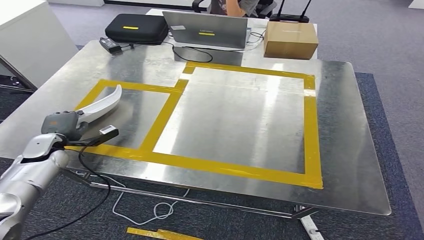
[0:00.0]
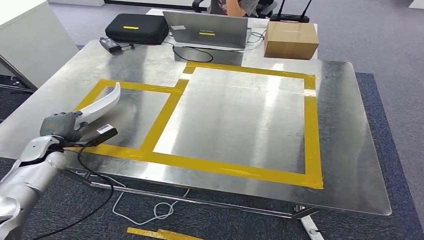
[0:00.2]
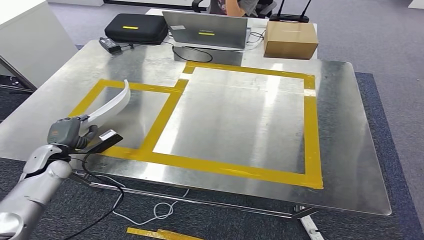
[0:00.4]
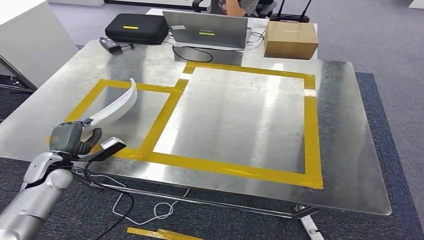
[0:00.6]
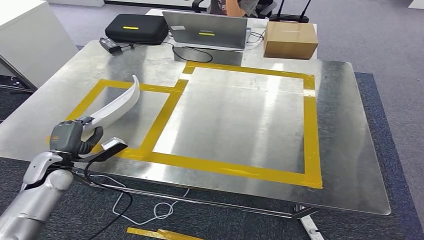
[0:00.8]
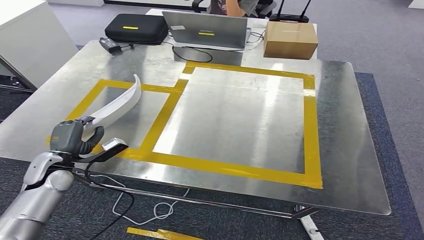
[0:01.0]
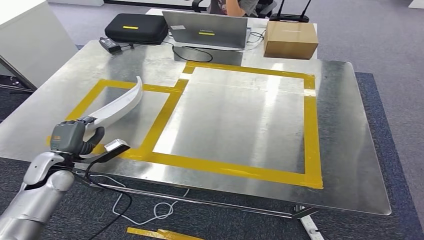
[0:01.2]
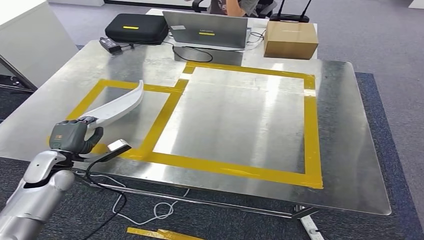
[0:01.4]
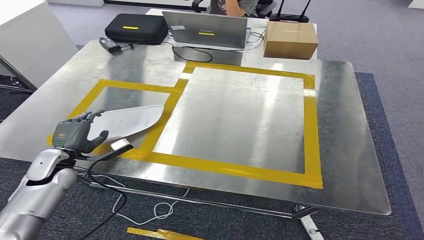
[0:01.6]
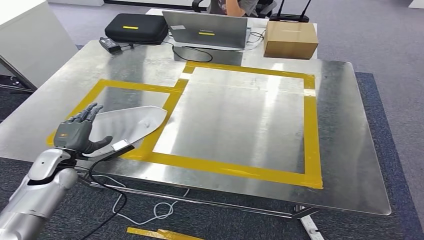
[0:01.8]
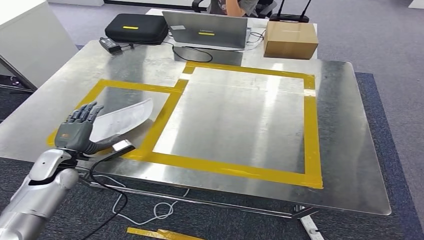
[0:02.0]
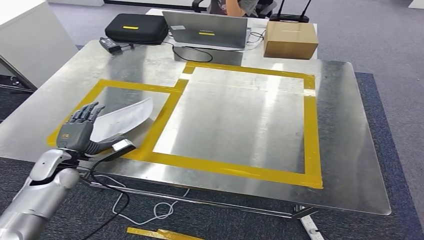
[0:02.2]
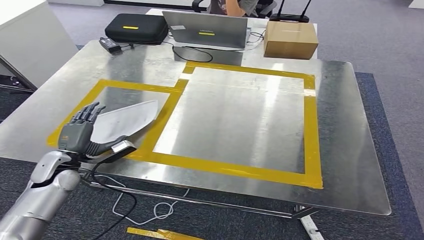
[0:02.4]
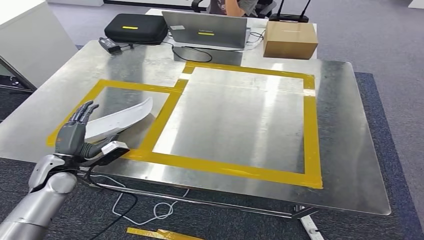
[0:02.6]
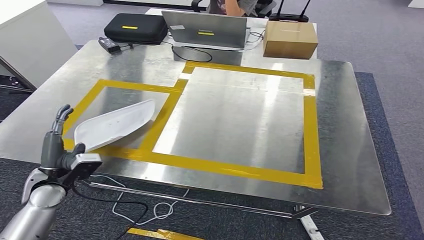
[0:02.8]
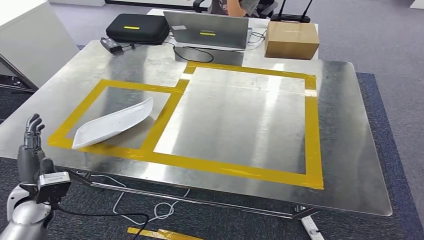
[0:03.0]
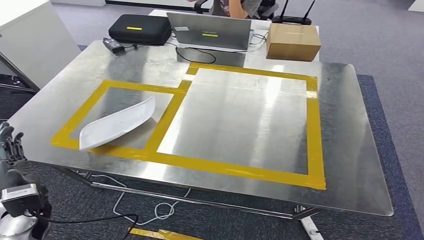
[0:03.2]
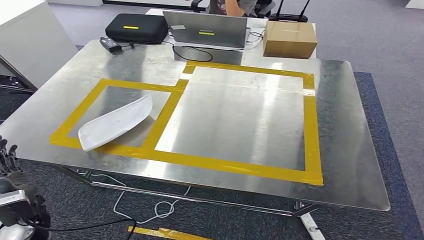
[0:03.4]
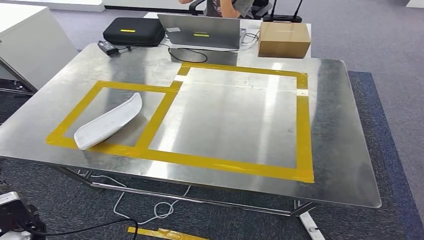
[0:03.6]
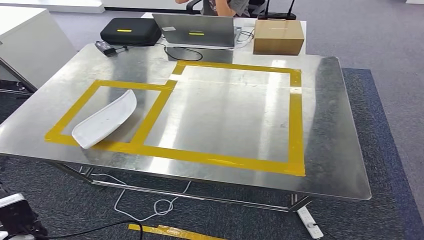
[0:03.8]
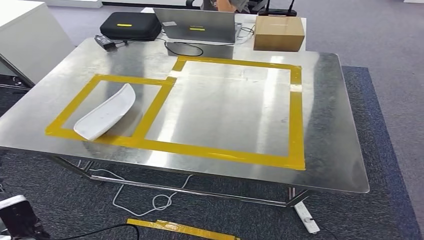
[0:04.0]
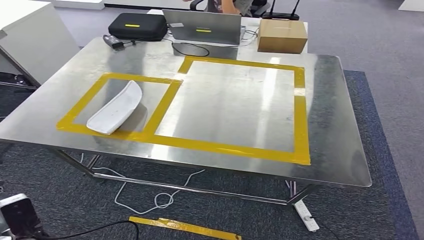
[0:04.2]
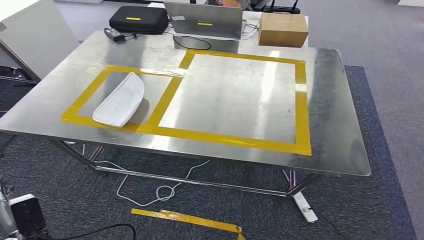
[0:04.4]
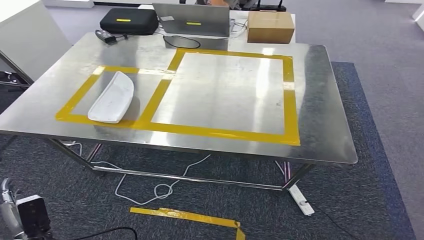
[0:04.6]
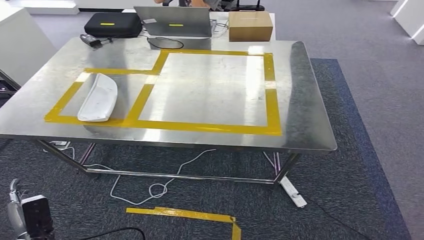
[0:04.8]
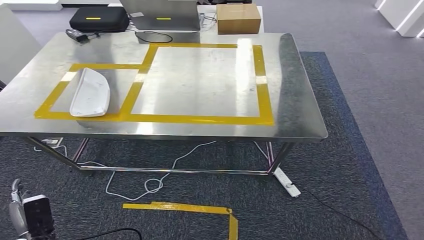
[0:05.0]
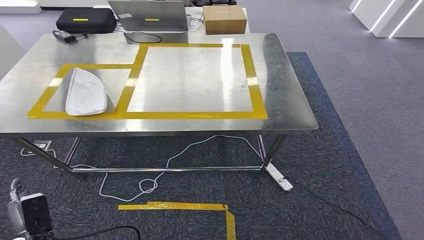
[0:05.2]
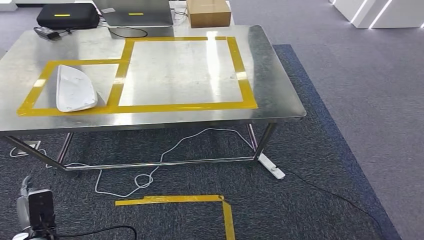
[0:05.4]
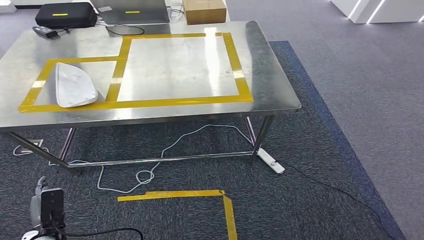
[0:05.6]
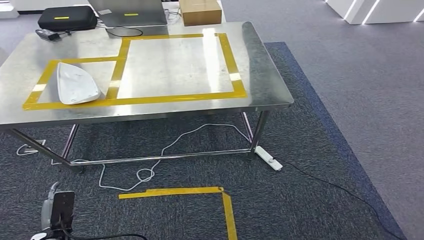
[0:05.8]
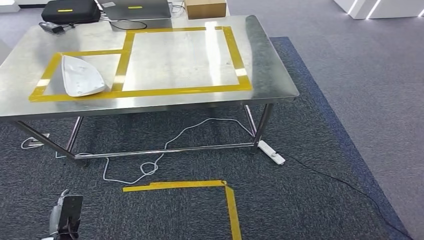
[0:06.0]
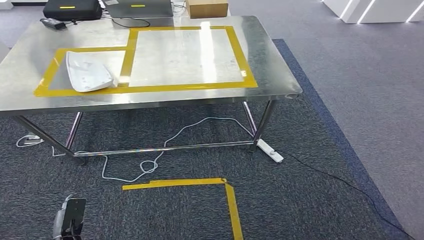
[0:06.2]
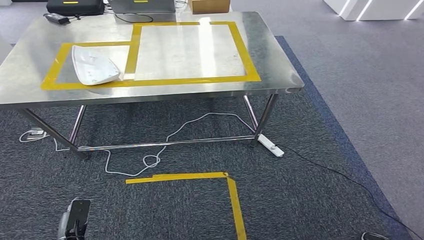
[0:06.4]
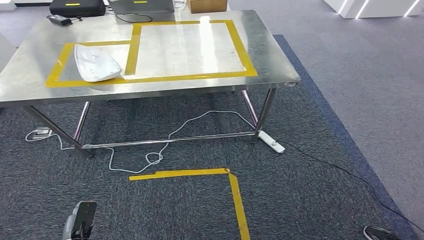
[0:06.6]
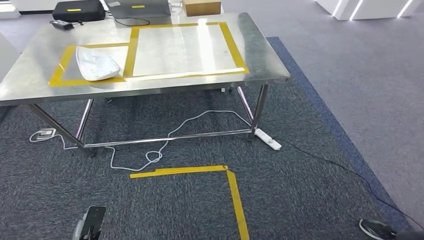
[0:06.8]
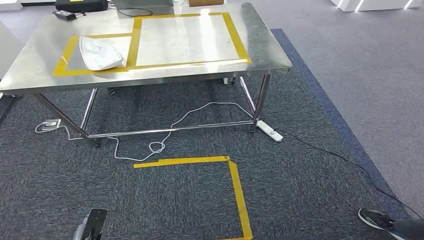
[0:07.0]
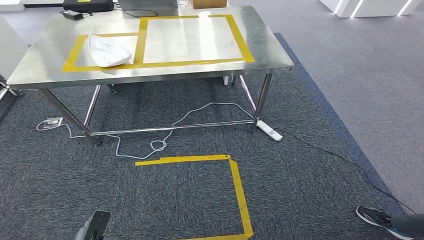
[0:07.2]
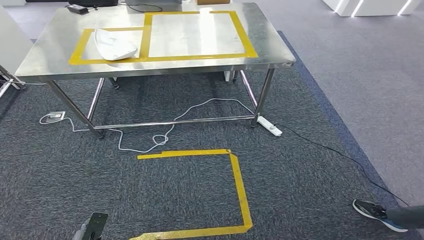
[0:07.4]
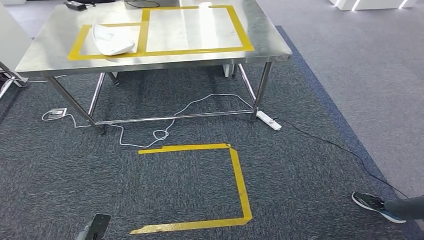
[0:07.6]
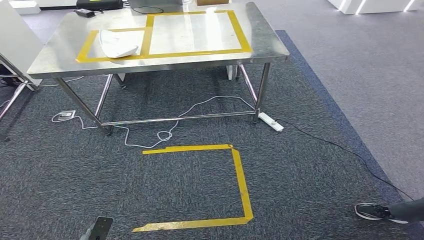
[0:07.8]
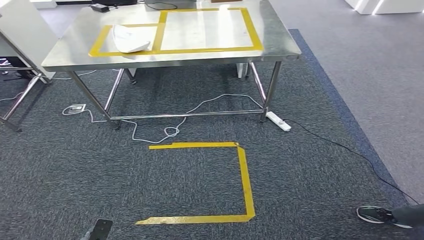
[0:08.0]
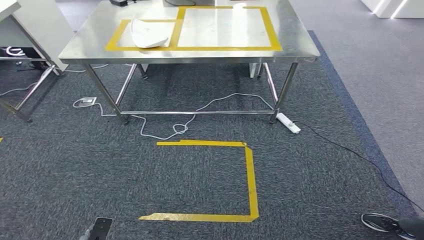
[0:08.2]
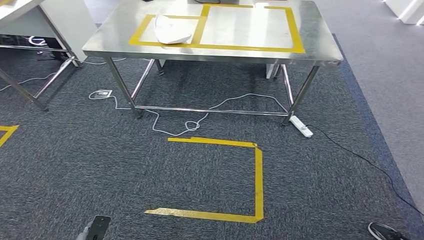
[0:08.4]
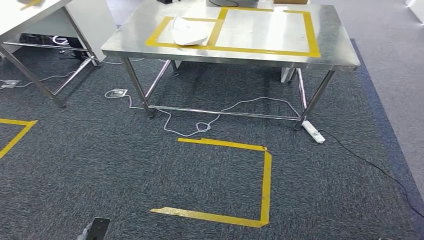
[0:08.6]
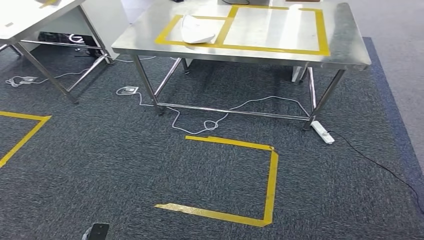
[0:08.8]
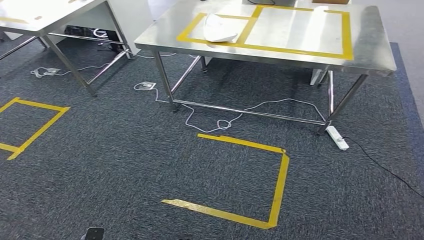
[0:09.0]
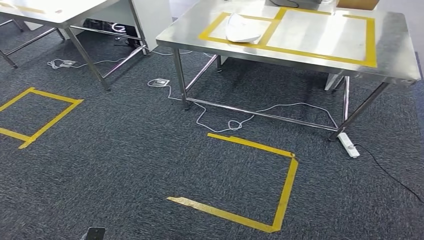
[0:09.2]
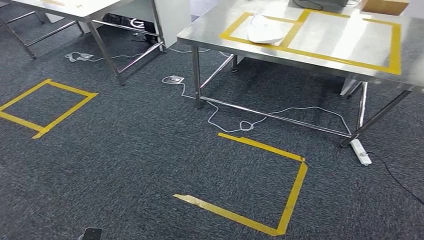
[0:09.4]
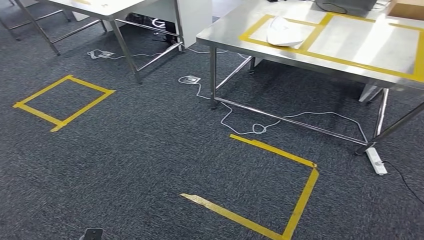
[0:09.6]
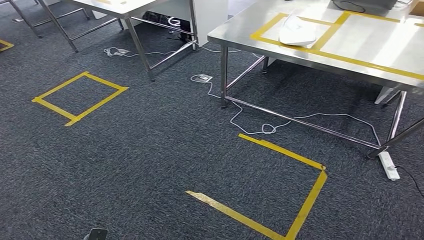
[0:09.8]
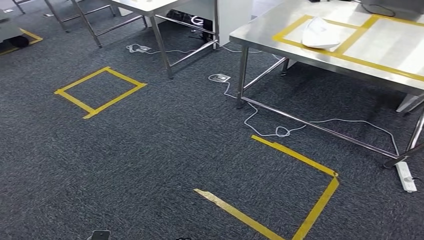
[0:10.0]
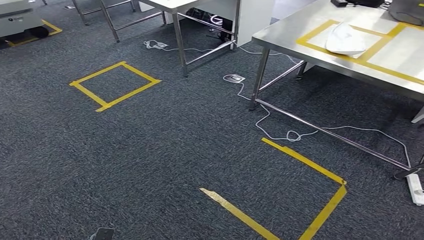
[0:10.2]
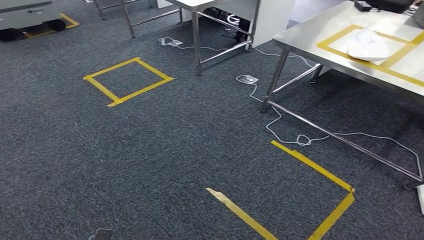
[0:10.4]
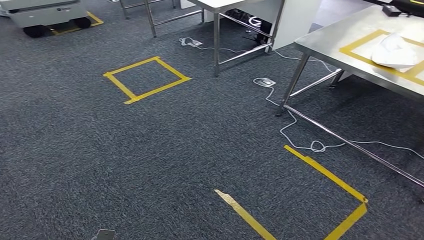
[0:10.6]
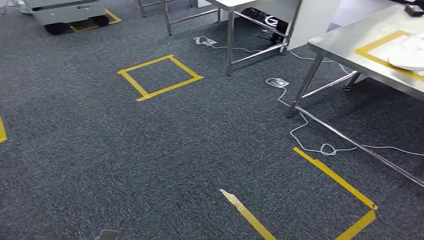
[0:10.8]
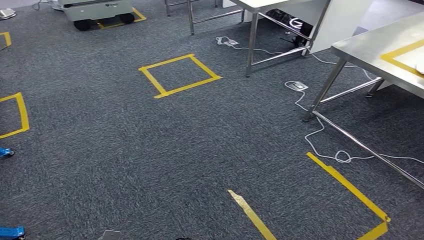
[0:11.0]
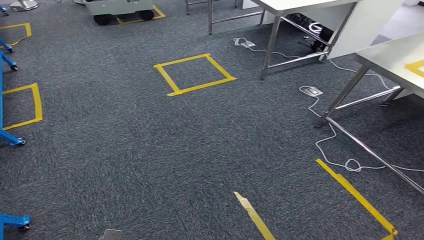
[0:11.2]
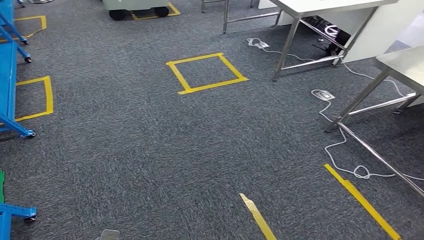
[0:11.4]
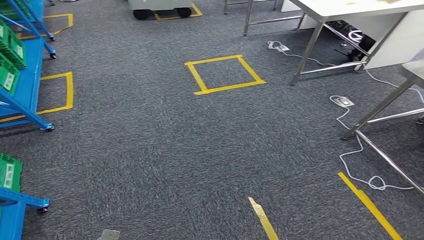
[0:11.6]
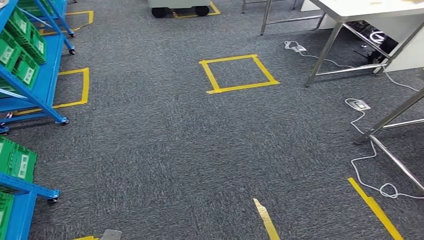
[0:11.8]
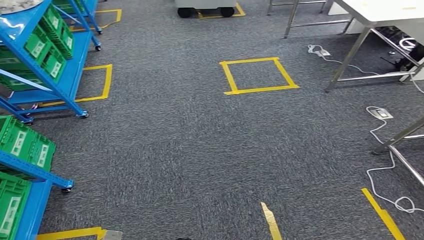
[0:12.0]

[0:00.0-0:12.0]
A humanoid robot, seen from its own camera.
Step, 0:00.0 to 0:02.6: Insert the small parts into the corresponding slots on the workbench.
0:00.0 to 0:01.6: The left hand moves backward, about 5 cm.
0:01.6 to 0:03.0: The left hand is displaced backward by about 10 cm.

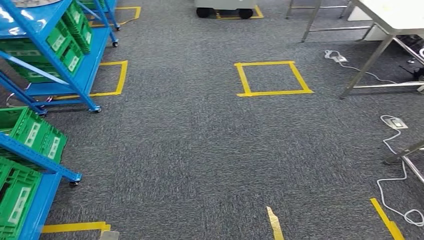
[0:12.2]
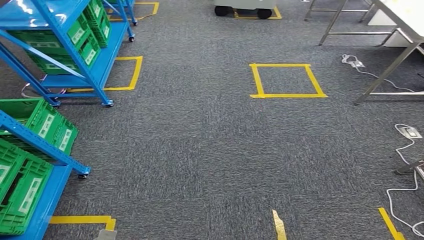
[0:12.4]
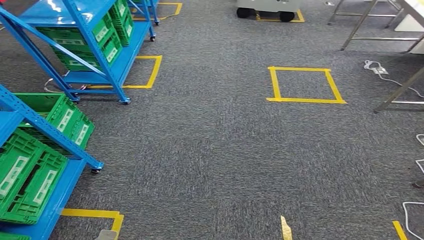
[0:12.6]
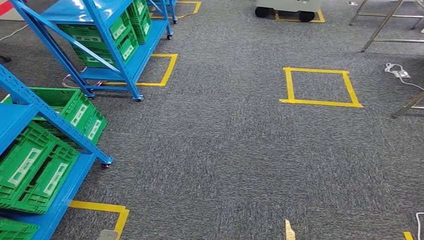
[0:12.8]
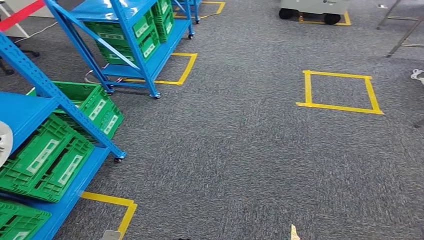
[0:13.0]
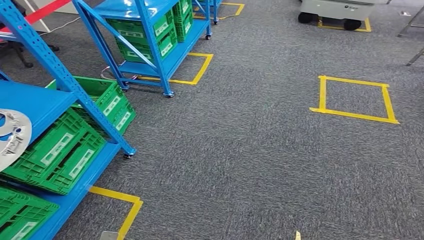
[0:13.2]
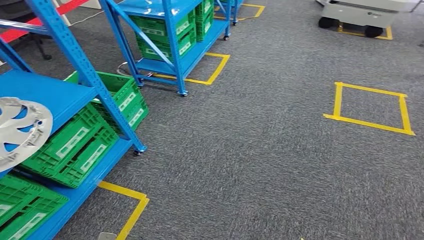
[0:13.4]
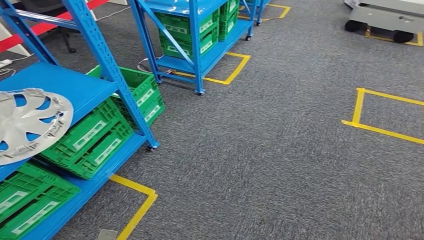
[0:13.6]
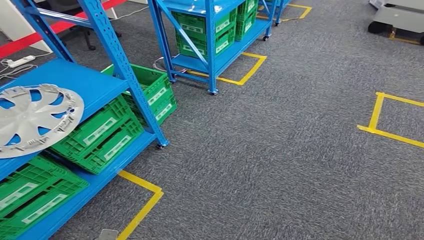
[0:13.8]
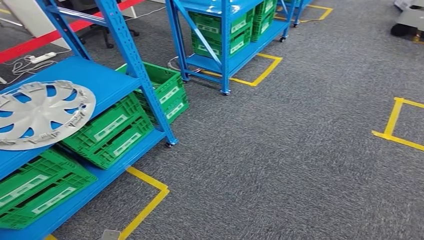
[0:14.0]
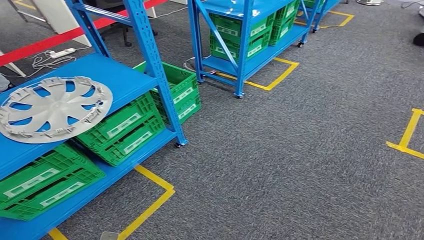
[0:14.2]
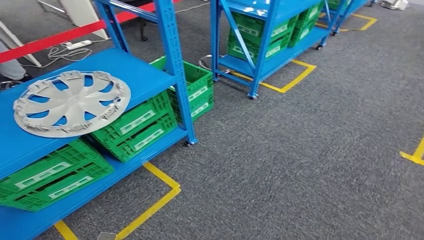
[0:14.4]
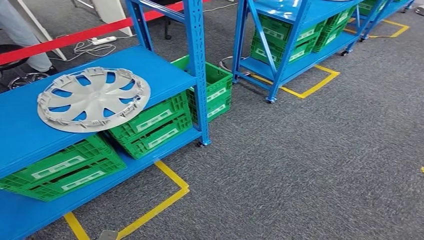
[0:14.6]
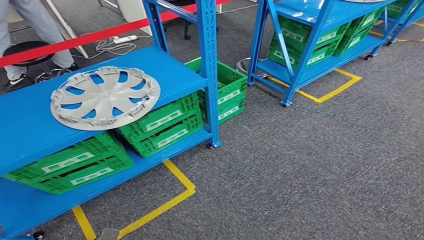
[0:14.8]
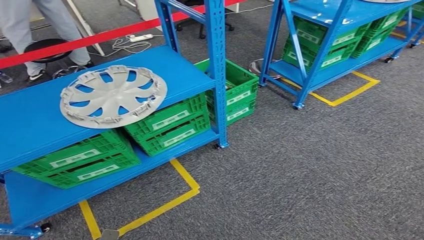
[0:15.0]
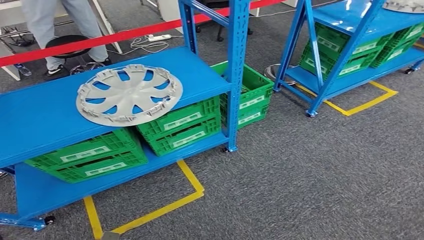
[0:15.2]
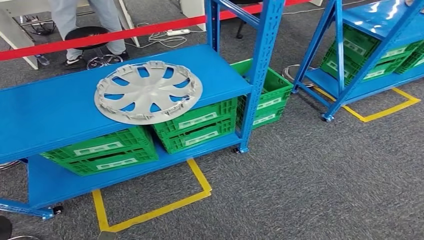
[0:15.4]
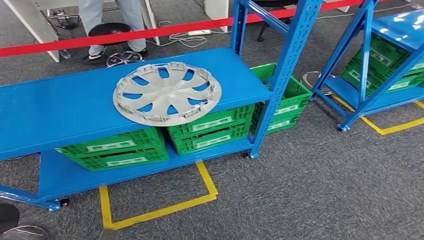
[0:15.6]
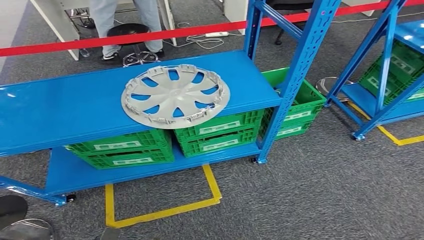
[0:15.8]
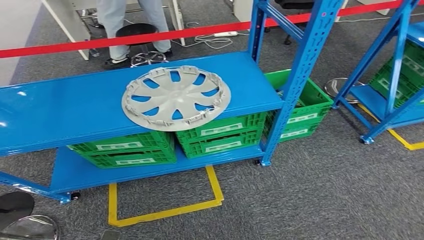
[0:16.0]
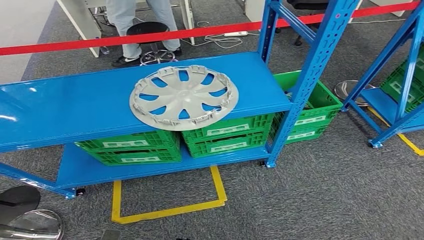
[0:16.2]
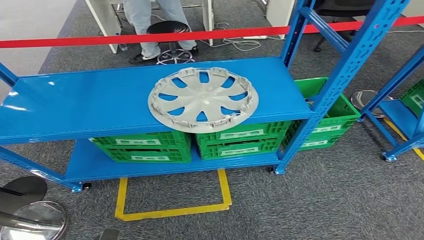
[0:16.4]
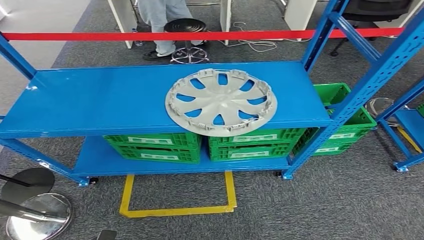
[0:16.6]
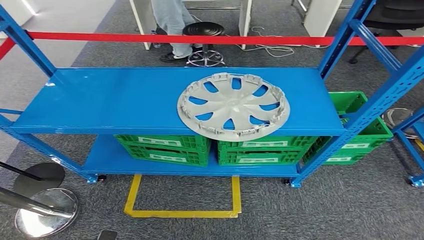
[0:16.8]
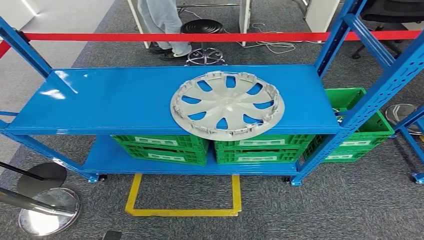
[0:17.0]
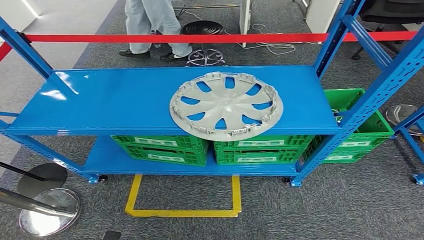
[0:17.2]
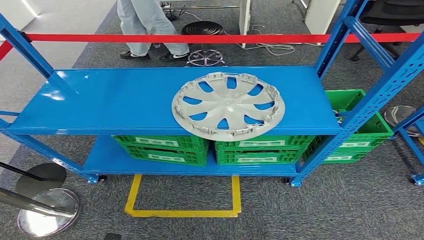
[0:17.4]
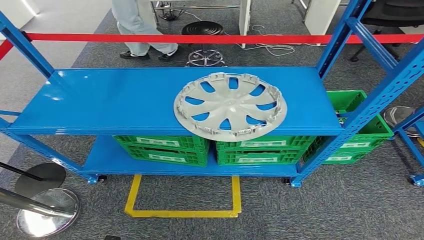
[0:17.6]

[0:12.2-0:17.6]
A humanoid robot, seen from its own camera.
Step, 0:12.2 to 0:17.6: Return to the initial position at the workbench.
